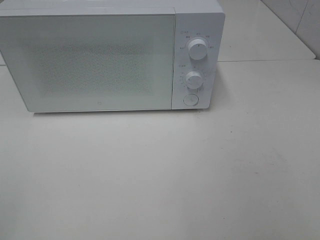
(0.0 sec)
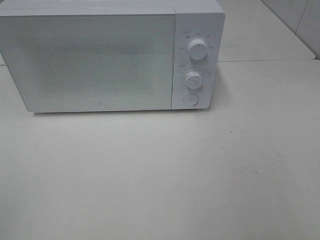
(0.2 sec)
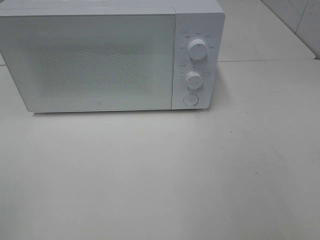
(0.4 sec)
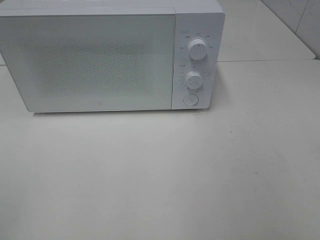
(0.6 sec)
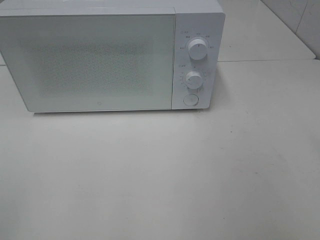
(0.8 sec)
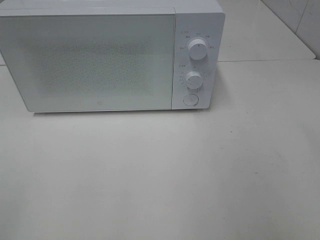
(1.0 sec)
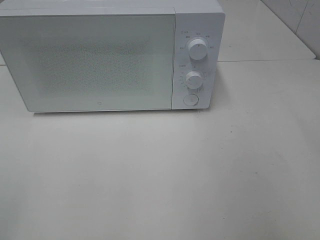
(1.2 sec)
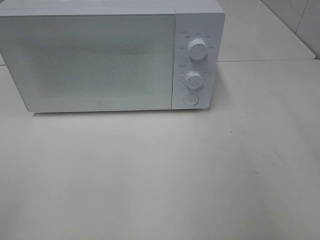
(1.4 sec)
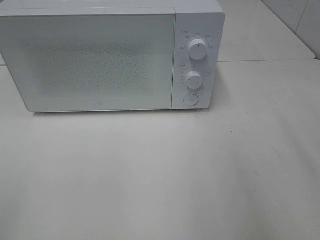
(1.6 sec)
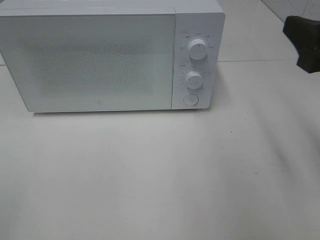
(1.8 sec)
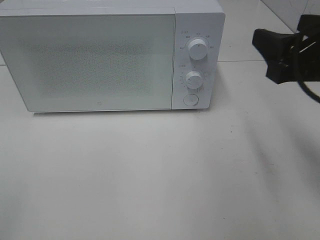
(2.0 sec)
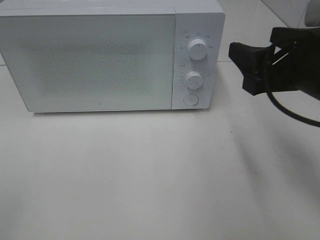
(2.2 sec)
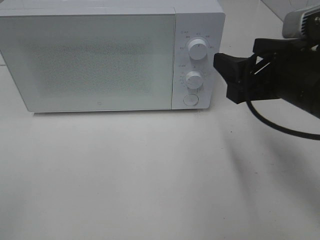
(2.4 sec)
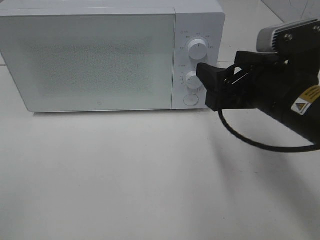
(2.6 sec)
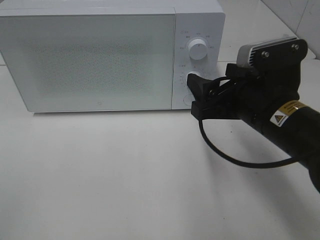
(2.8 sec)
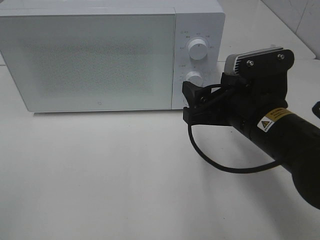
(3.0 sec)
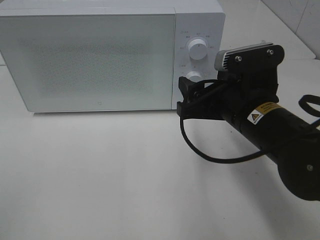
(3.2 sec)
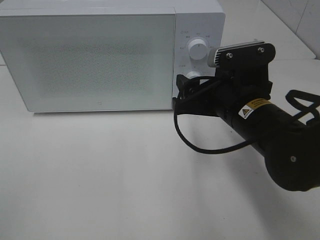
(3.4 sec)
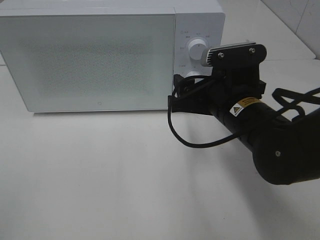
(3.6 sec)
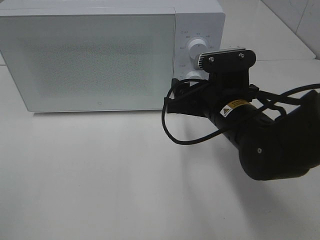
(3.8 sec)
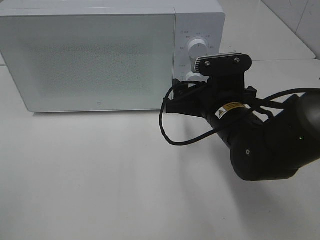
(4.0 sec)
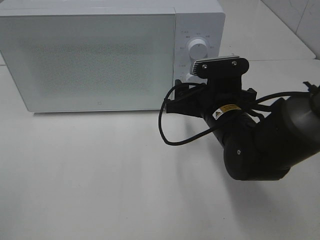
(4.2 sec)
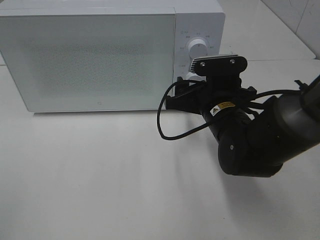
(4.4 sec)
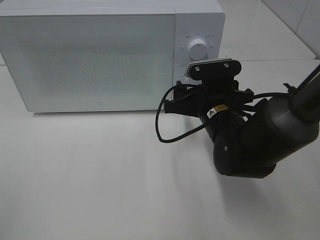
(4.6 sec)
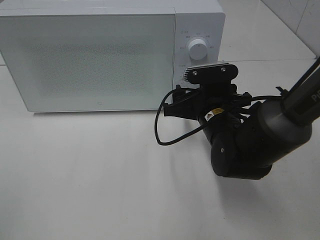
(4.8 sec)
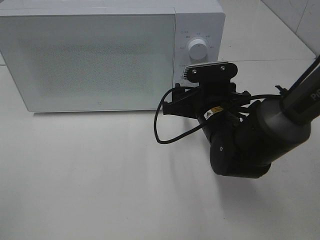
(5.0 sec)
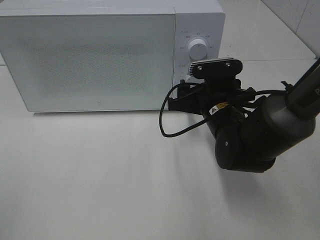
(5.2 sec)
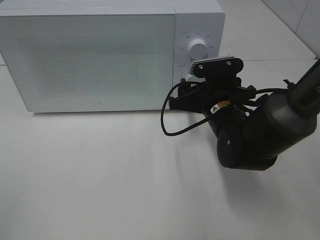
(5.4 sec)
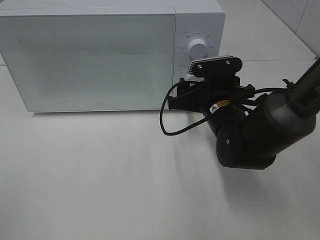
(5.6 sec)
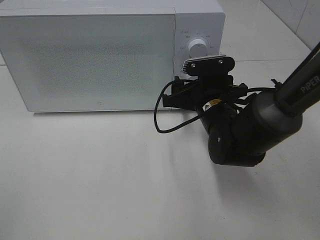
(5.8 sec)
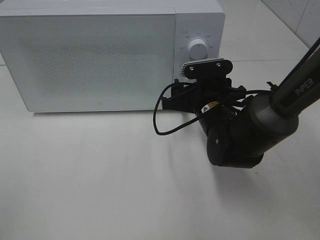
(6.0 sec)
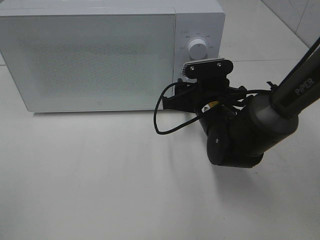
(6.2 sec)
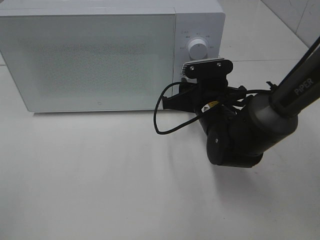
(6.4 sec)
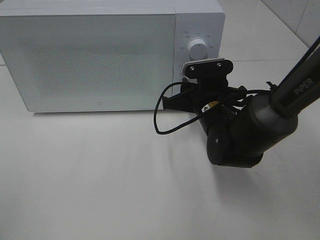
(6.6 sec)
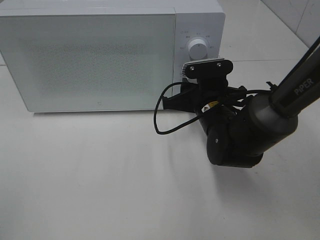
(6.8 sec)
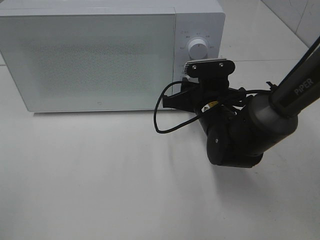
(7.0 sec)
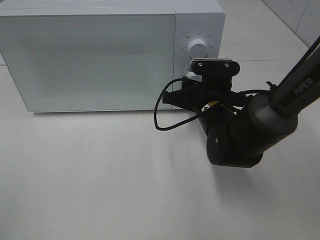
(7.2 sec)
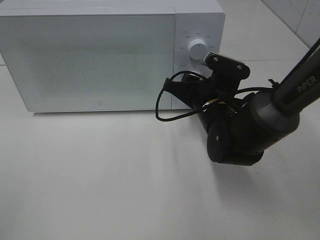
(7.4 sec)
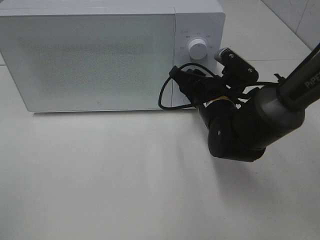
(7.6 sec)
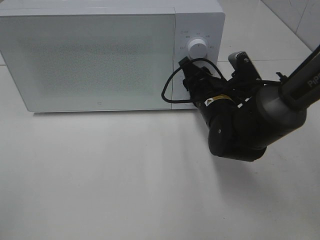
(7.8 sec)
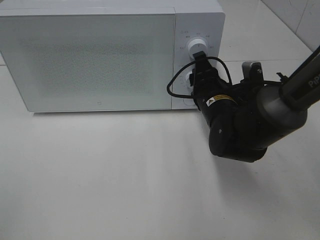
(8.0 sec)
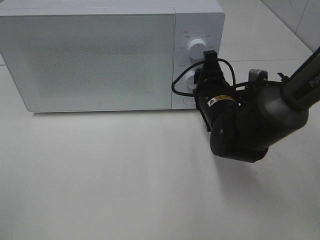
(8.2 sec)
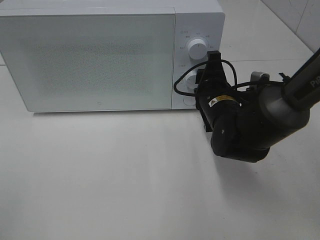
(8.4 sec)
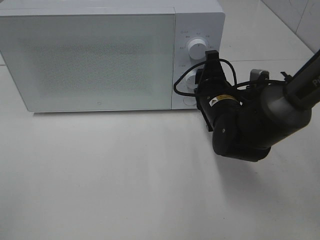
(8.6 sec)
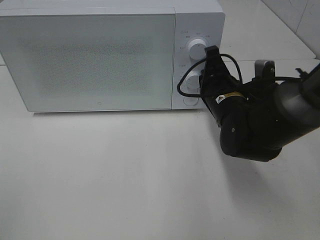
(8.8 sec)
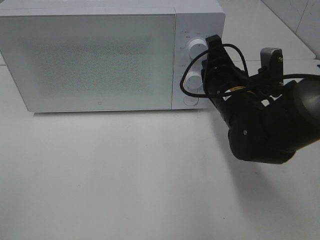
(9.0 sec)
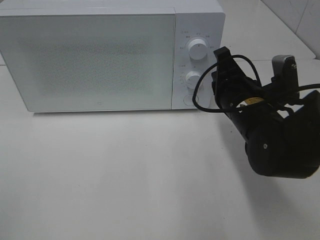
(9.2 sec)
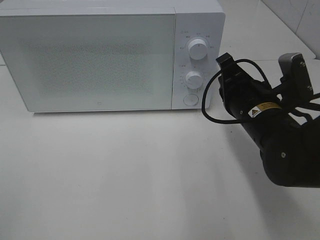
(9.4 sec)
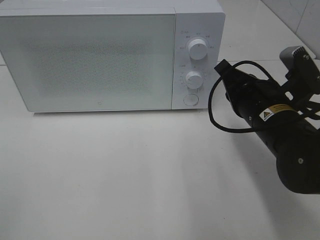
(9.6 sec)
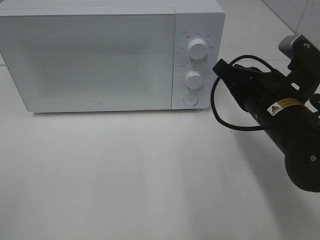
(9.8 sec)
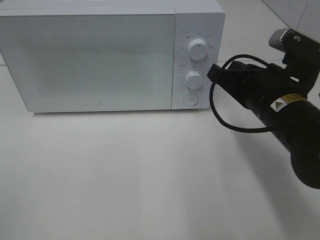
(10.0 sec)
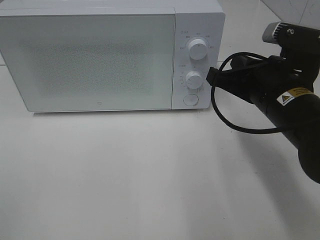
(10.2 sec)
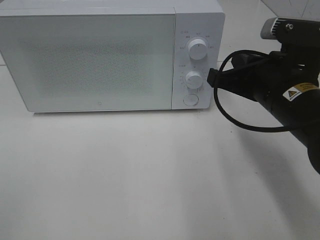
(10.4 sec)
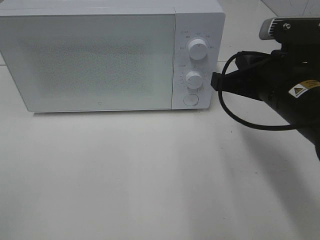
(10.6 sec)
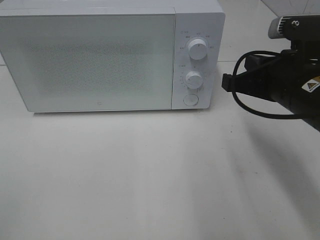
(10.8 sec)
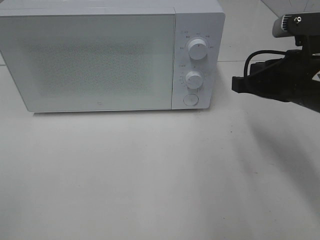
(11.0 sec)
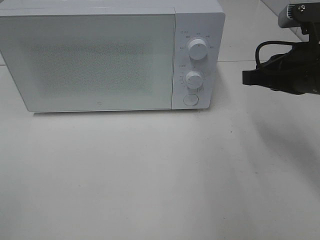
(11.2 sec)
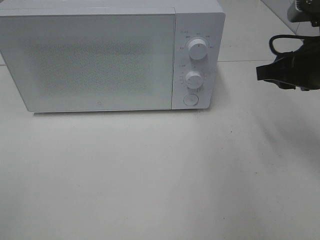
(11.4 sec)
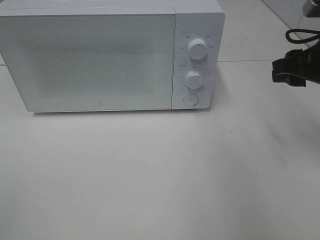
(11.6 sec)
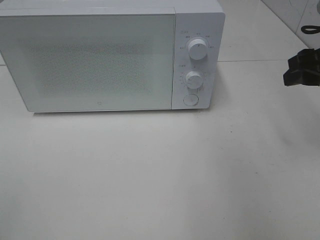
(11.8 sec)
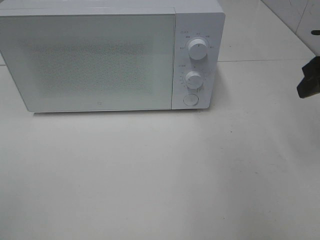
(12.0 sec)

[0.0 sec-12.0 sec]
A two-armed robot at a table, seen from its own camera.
Task of the whole recording: Heat Sandwich.
Step, 0.0 sec to 8.8 sec: Right hand: twist timer button.
1.6 sec to 3.0 sec: The right gripper goes some 20 cm to the left, downward and forward.
3.0 sec to 4.4 sec: The right gripper shifts some 5 cm forward.
4.4 sec to 6.0 sec: There are only small adjustments of the grippers.
6.0 sec to 7.6 sec: The right gripper closes.
7.6 sec to 9.0 sec: The right gripper closes.
9.0 sec to 10.4 sec: The right gripper goes some 10 cm backward and upward.
10.4 sec to 12.0 sec: The right gripper moves to the right and upward, some 15 cm, and opens its fingers.

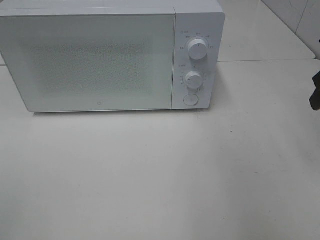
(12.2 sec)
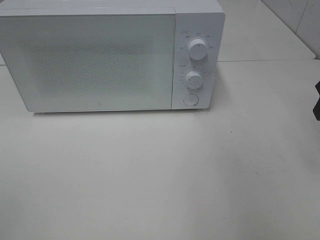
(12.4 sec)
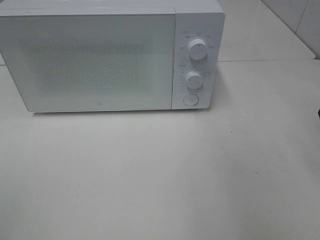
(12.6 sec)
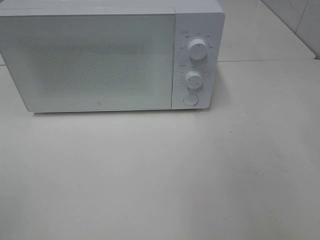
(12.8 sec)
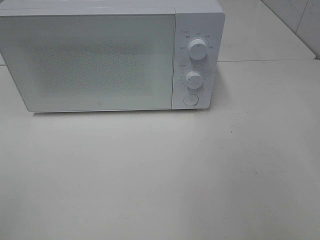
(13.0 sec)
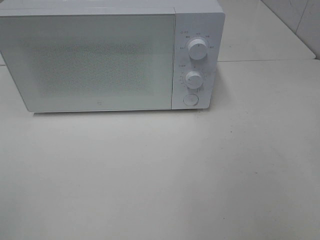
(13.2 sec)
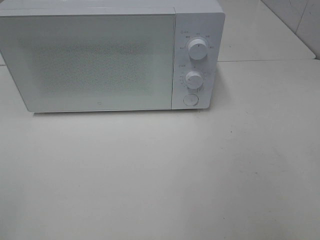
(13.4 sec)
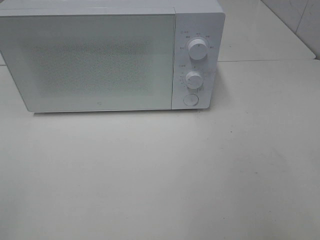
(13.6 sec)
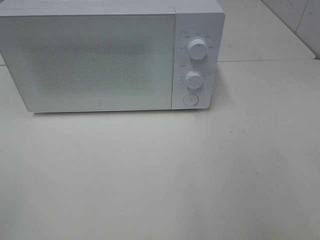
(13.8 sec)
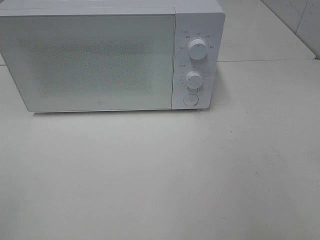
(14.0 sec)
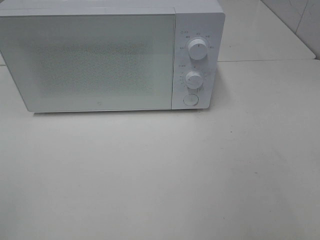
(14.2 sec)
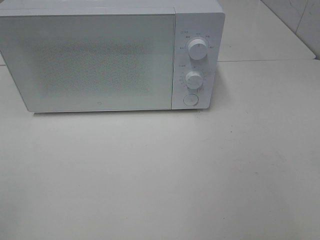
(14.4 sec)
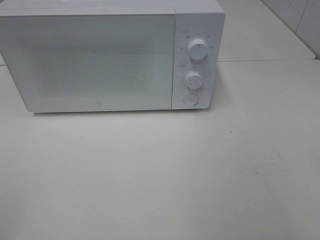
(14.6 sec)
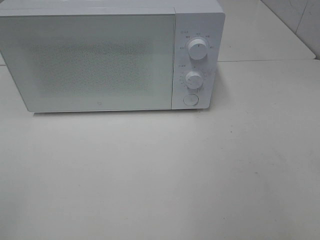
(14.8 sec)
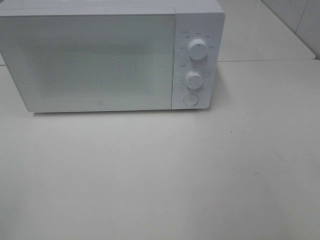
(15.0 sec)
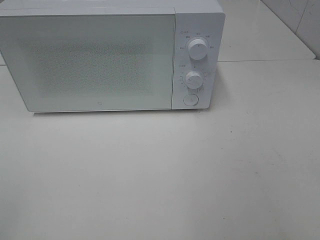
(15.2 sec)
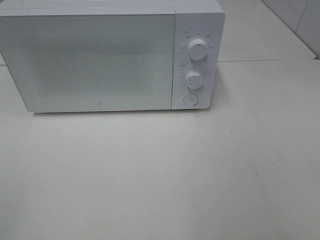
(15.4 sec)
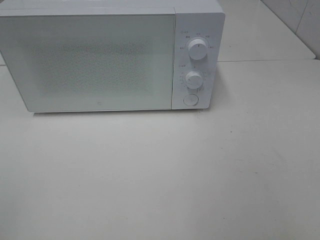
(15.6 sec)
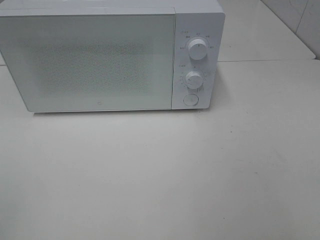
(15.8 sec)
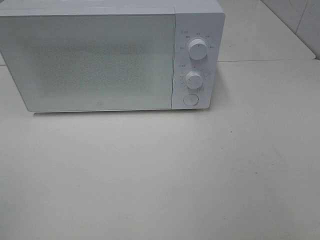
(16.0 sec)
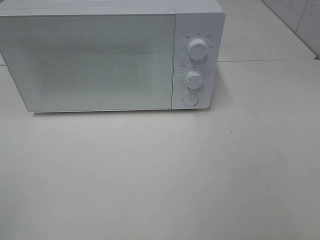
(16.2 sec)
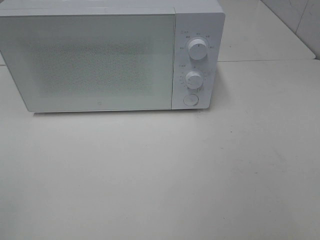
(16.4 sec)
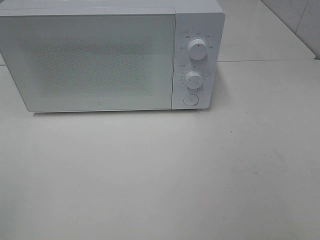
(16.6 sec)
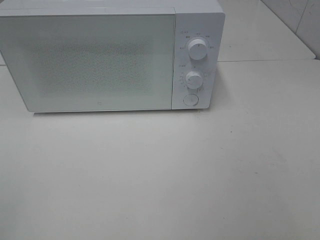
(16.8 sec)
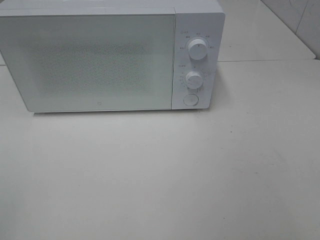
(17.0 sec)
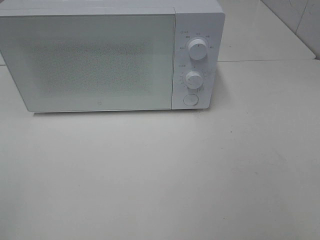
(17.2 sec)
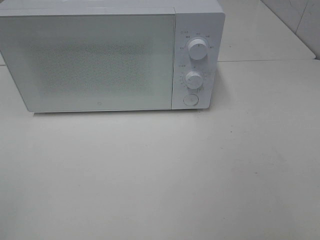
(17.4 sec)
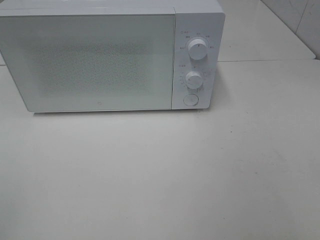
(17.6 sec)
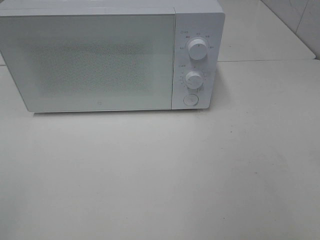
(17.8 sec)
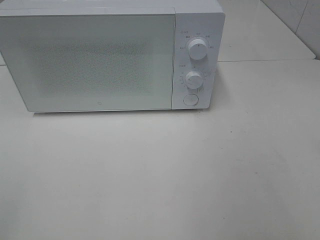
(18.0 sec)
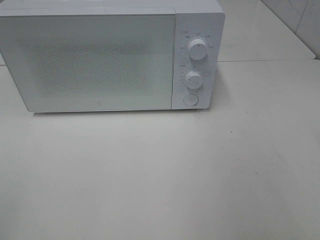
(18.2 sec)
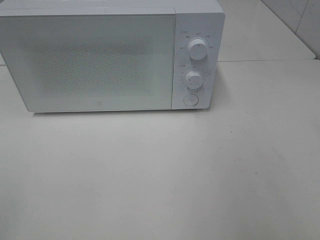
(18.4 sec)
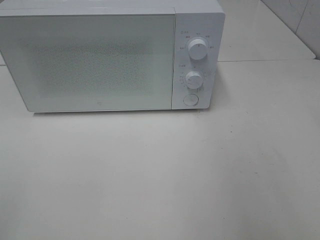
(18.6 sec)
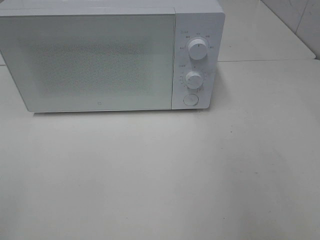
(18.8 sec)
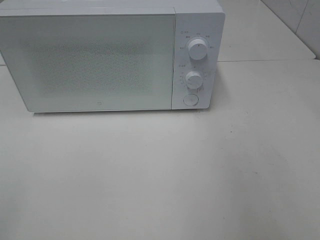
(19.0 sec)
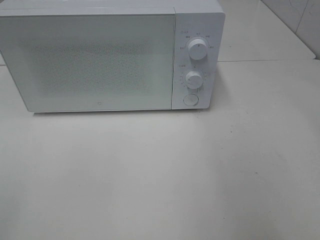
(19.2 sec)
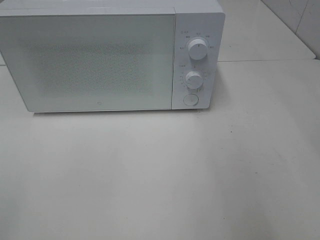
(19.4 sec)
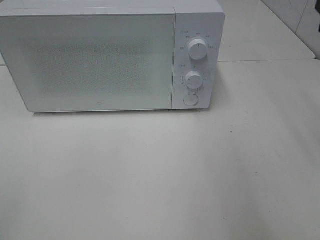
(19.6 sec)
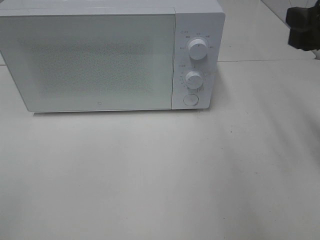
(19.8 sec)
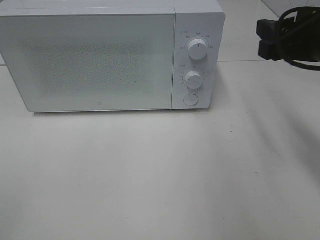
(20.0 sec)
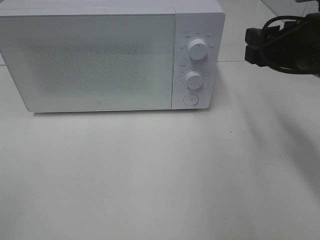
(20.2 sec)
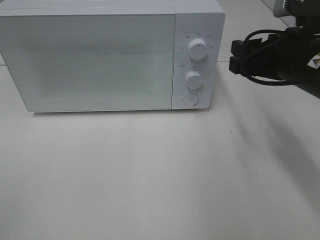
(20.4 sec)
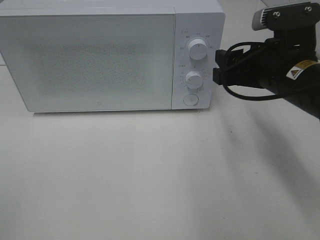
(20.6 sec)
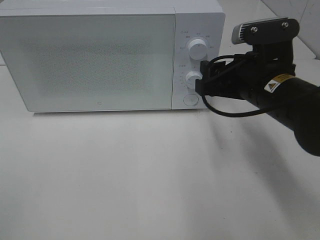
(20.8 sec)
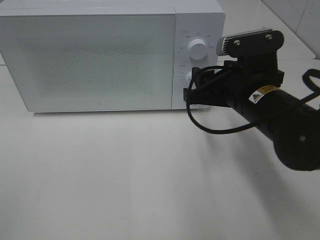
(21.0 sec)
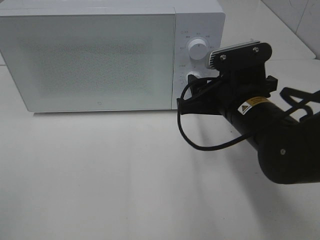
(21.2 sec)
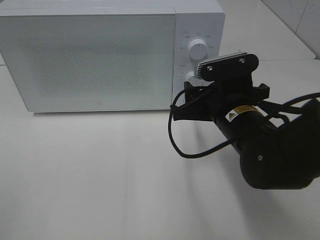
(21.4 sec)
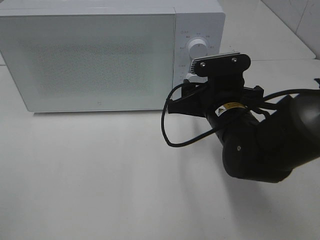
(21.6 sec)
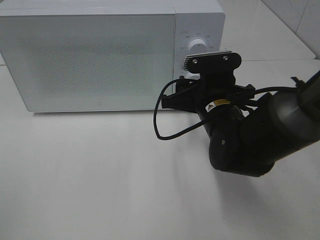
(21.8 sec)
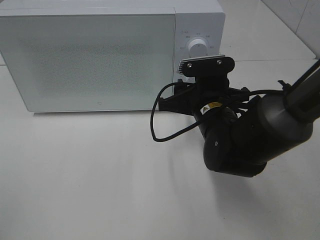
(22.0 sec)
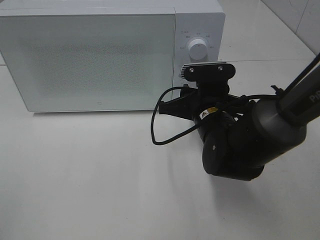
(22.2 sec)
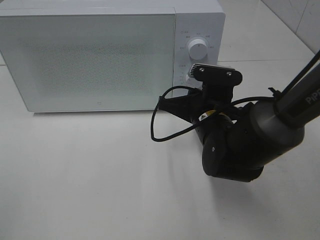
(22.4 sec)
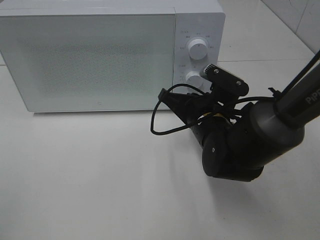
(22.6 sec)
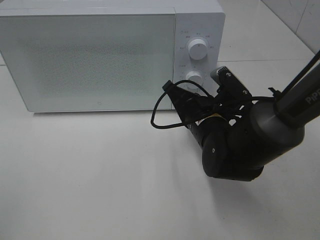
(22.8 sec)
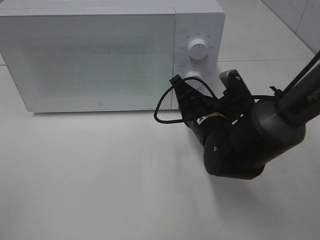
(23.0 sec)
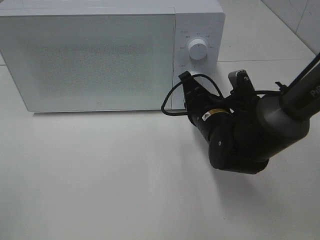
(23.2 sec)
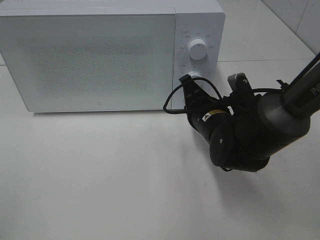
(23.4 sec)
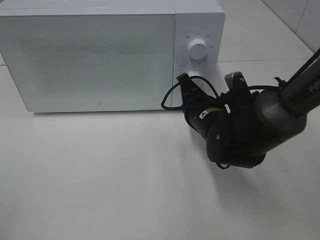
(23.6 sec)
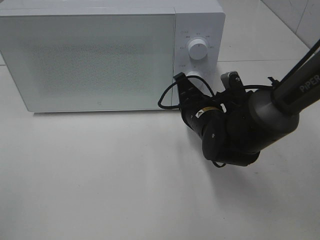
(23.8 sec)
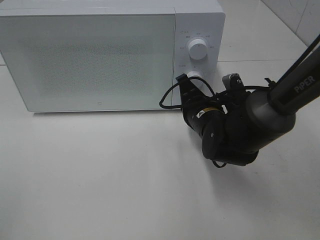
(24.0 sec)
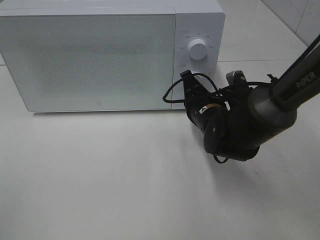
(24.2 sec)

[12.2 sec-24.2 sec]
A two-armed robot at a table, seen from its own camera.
Task of the whole recording: Heat Sandwich.
18.2 sec to 19.8 sec: The right gripper travels forward by roughly 15 cm.
19.8 sec to 21.2 sec: The right gripper moves downward and to the left, roughly 15 cm.
21.2 sec to 22.6 sec: The right gripper goes approximately 5 cm downward, and closes.
